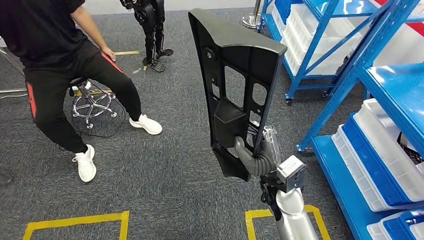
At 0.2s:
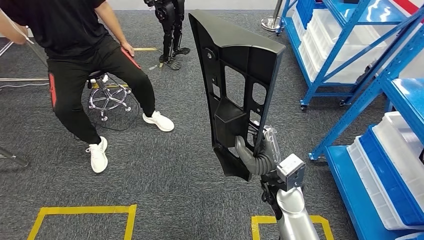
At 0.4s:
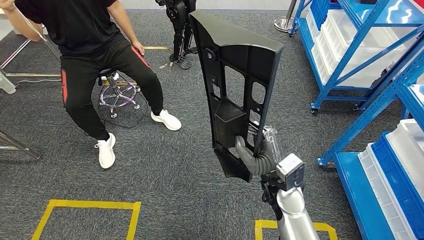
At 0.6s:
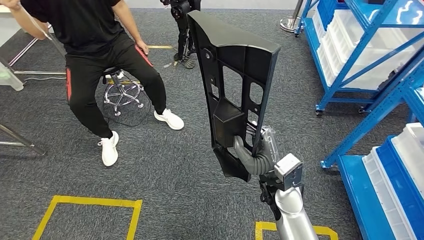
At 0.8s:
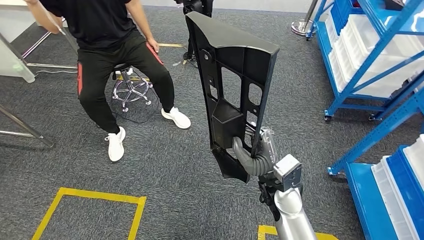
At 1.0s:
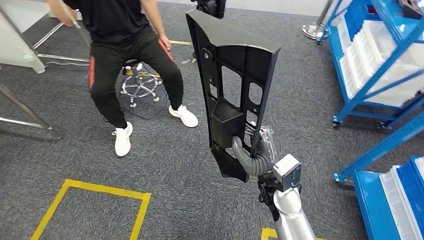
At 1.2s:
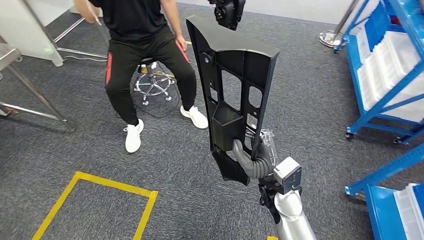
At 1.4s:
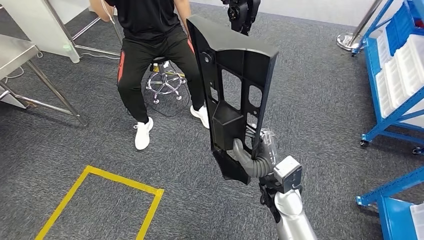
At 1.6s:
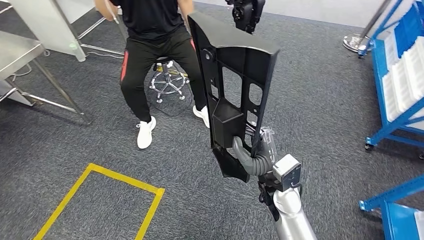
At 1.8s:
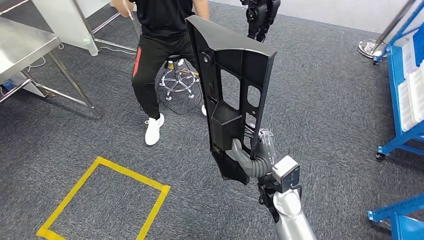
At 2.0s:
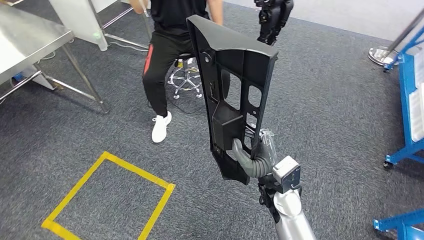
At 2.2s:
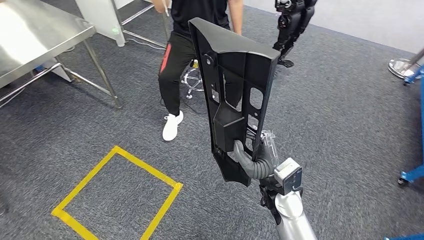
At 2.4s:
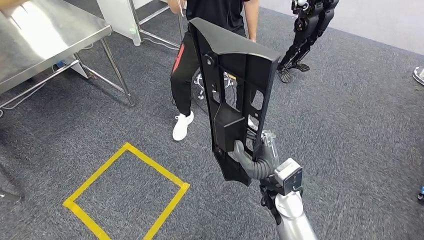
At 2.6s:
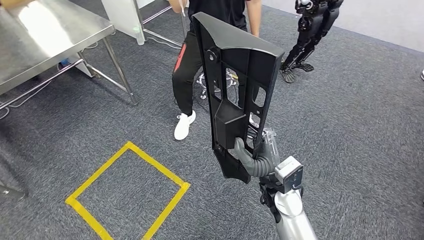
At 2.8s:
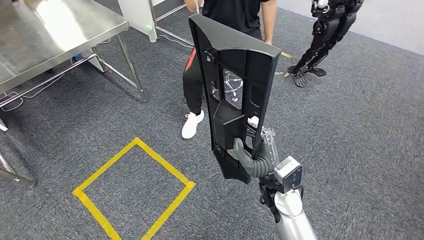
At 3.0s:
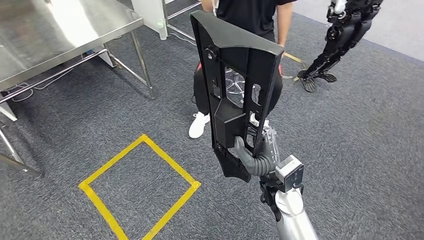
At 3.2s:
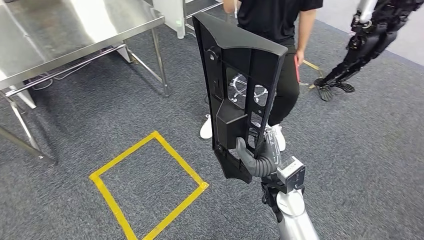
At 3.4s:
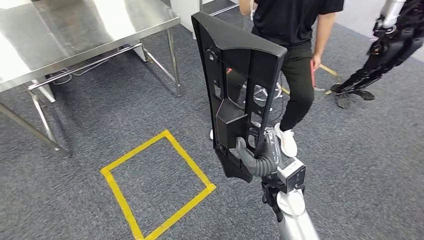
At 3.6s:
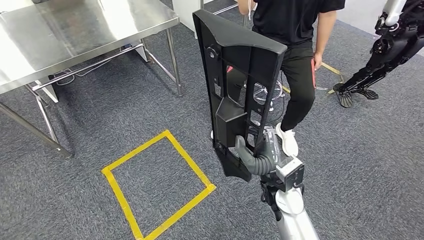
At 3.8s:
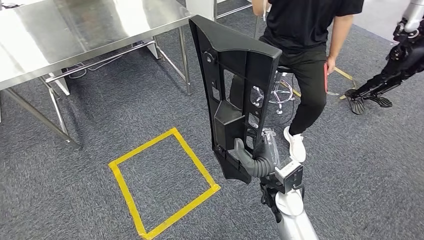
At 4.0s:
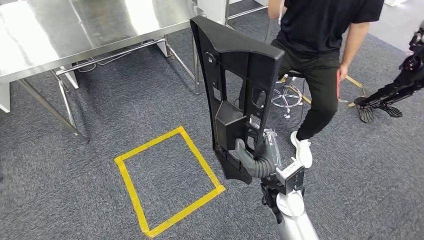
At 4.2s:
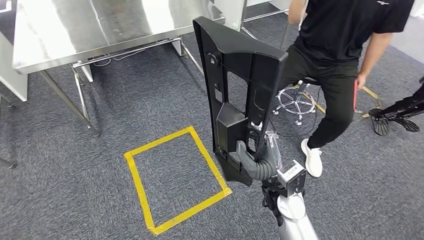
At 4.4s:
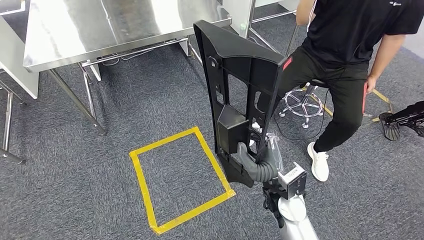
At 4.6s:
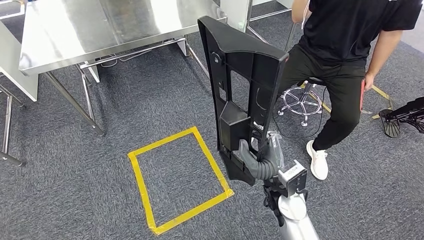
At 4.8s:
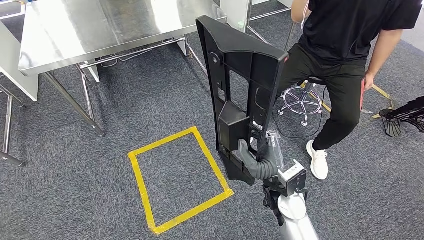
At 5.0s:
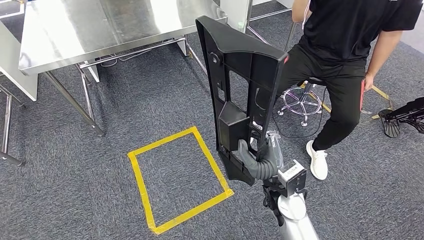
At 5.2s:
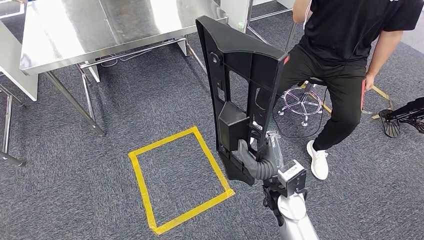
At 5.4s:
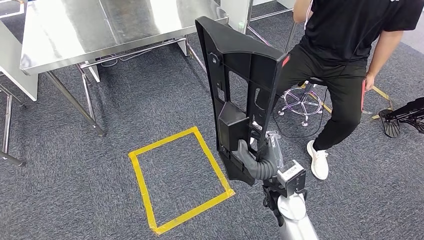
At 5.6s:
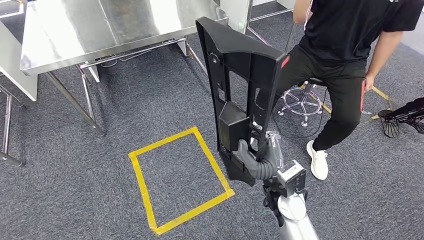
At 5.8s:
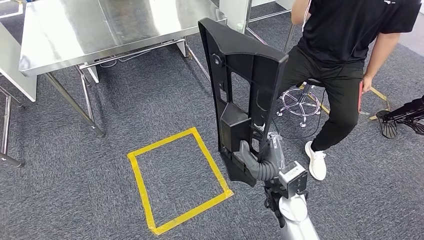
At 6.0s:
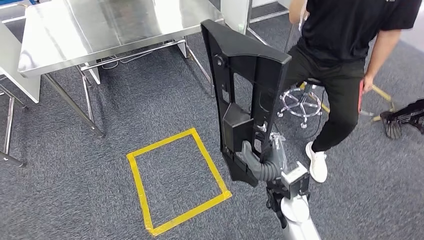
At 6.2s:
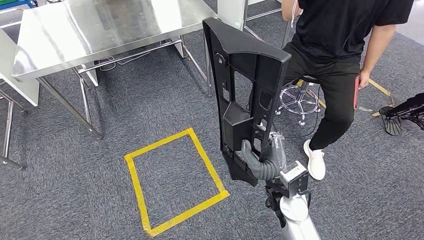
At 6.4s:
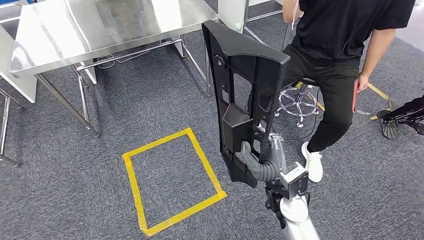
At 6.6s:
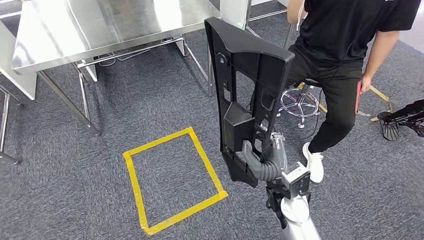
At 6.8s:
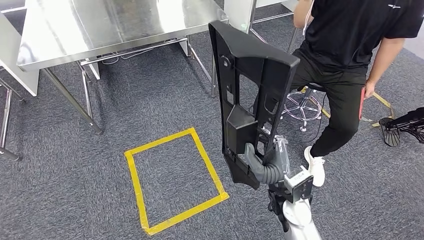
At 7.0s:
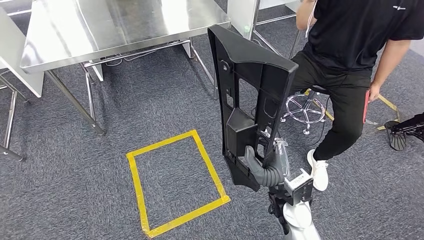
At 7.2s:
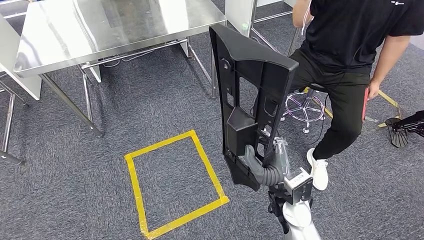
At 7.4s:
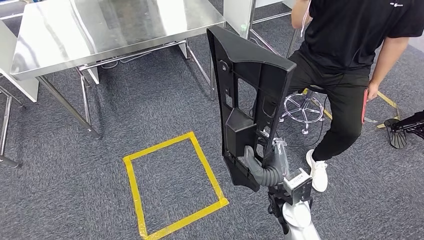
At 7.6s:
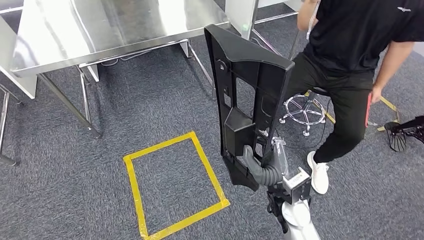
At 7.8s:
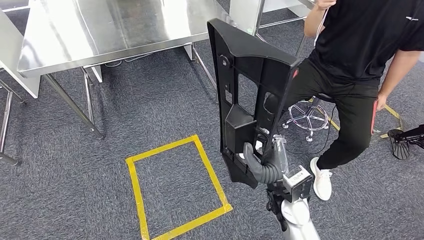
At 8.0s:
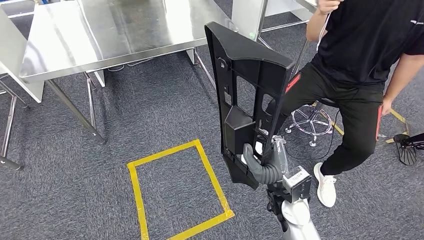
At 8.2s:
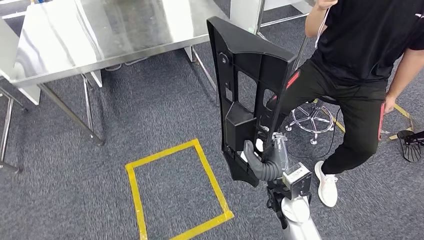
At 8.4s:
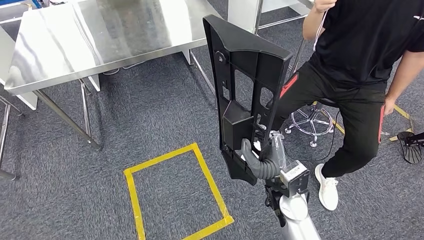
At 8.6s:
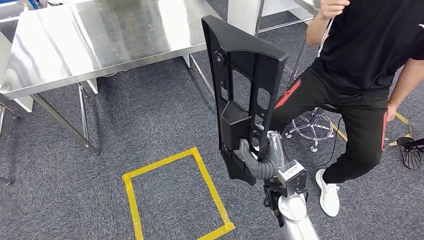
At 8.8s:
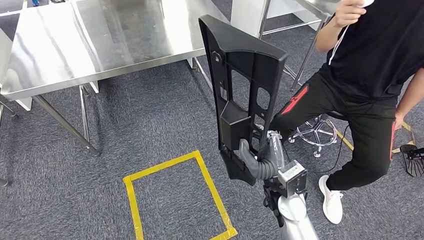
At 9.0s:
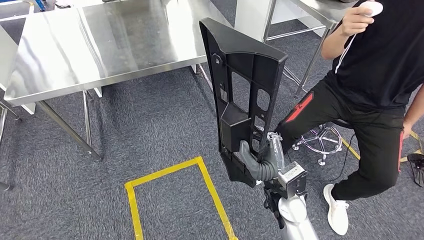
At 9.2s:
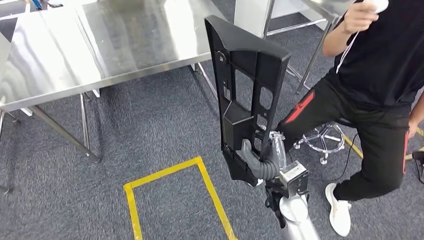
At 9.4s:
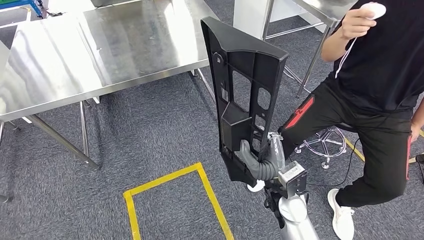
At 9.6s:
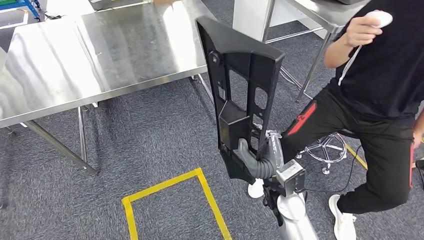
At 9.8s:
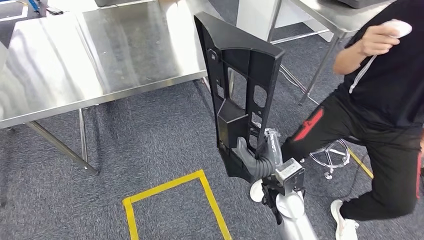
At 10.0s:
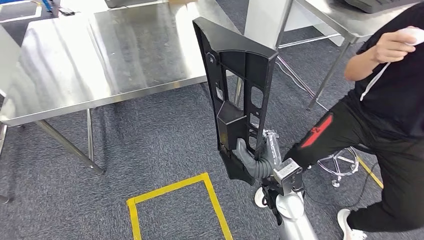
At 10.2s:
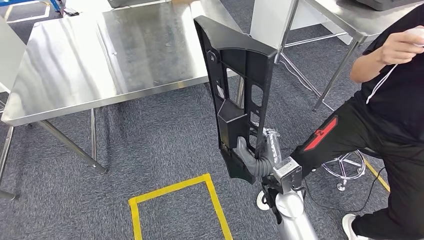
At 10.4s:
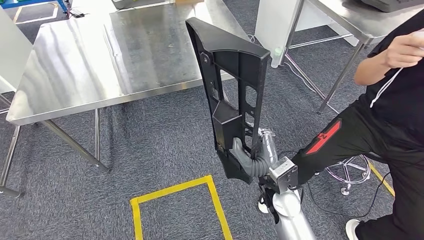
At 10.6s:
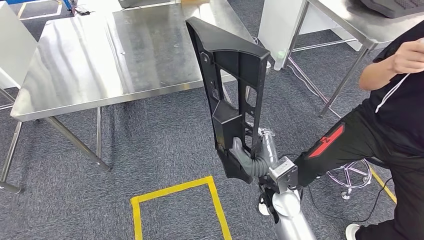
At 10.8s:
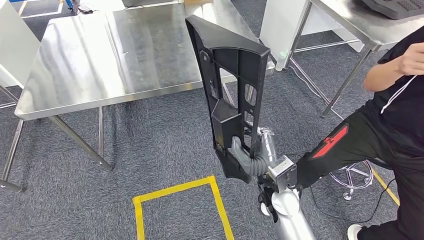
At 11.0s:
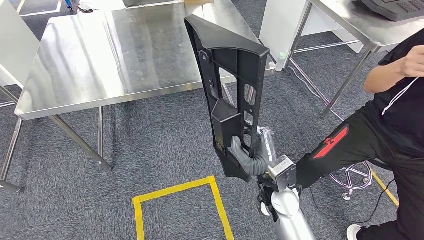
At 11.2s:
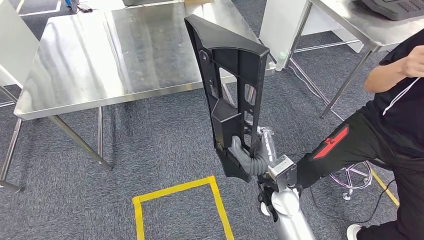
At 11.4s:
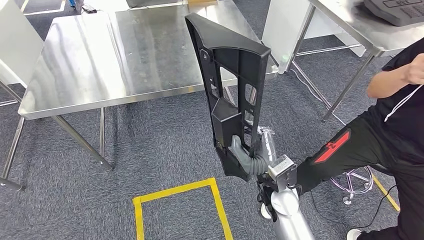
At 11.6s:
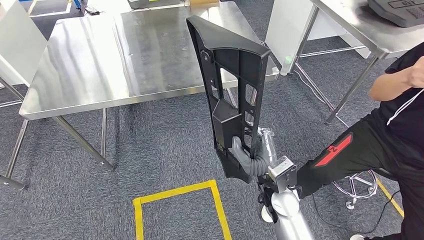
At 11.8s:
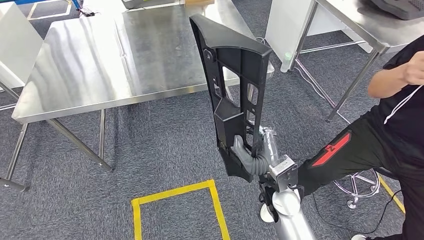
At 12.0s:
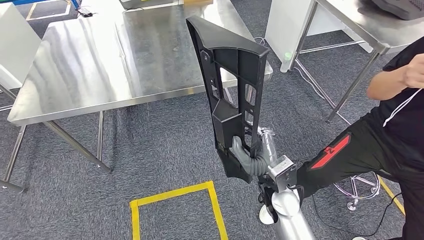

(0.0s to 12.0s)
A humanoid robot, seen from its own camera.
4.4s - 6.0s: Both hands stay put.

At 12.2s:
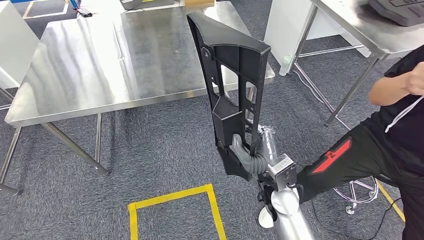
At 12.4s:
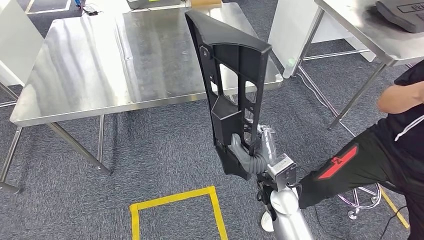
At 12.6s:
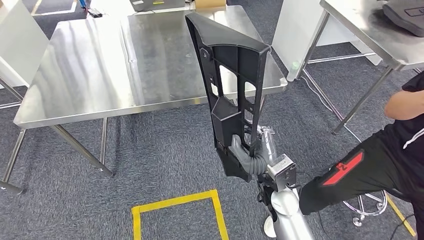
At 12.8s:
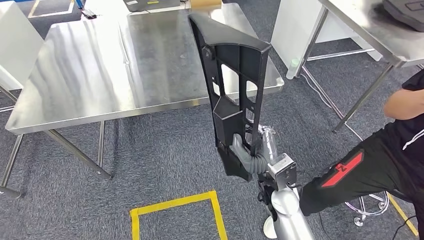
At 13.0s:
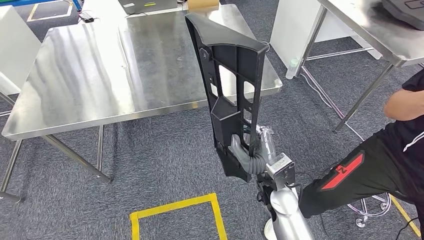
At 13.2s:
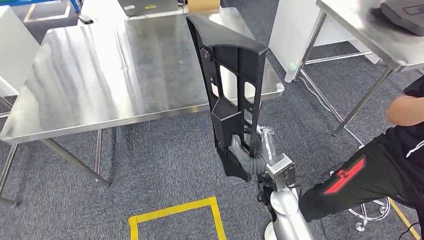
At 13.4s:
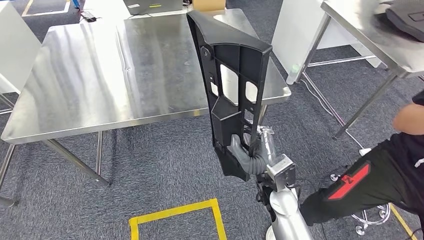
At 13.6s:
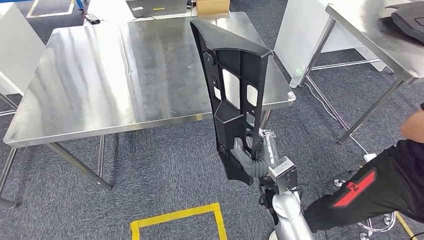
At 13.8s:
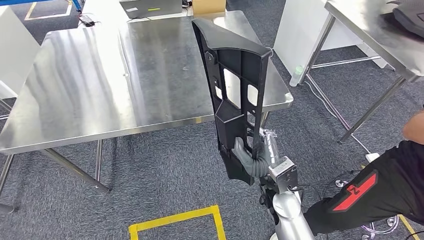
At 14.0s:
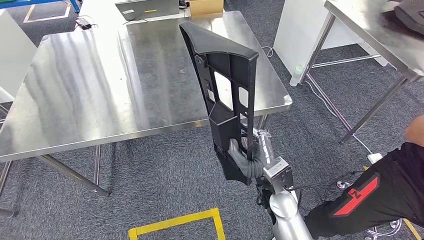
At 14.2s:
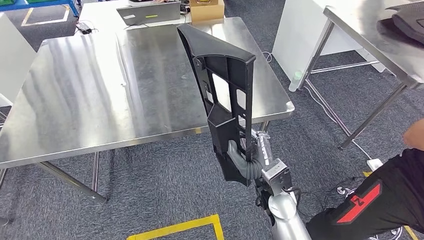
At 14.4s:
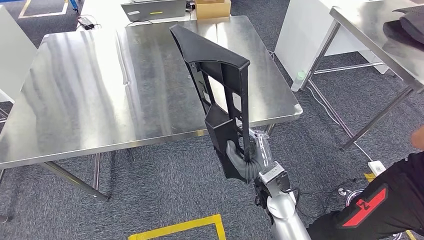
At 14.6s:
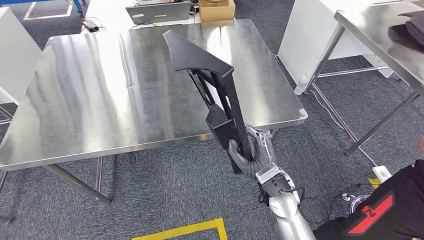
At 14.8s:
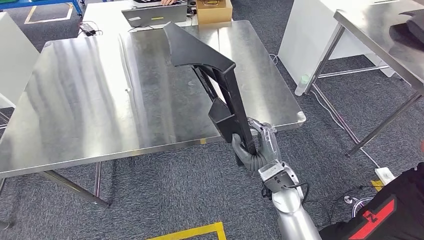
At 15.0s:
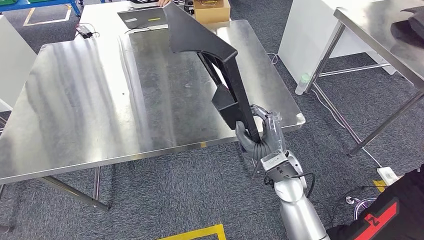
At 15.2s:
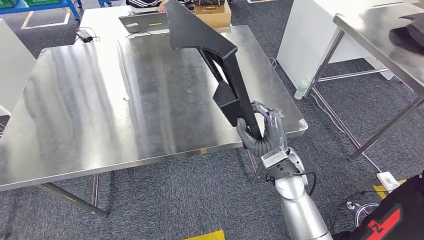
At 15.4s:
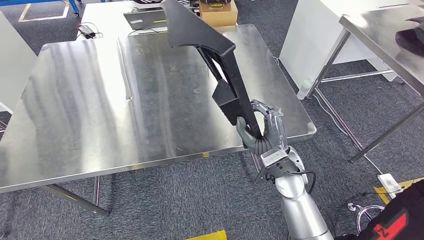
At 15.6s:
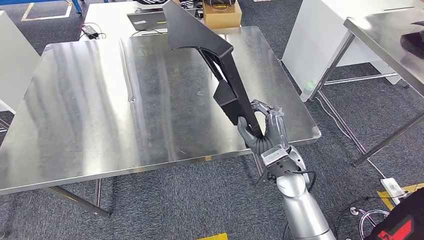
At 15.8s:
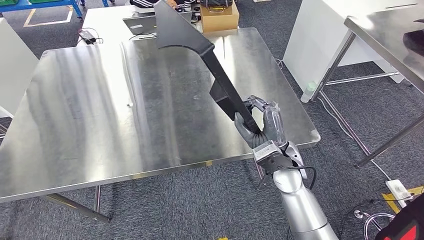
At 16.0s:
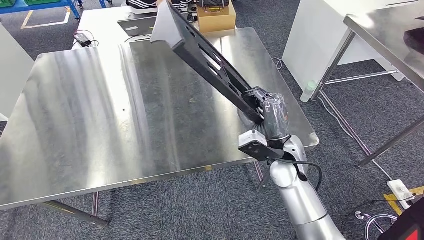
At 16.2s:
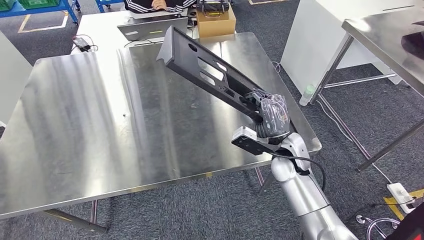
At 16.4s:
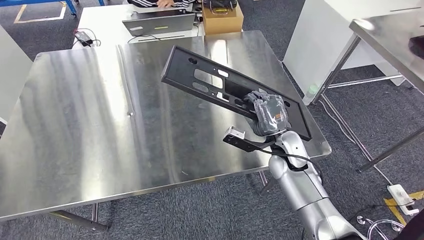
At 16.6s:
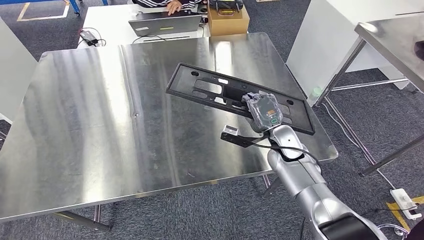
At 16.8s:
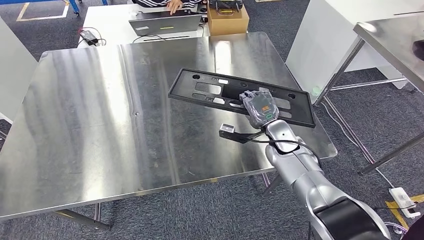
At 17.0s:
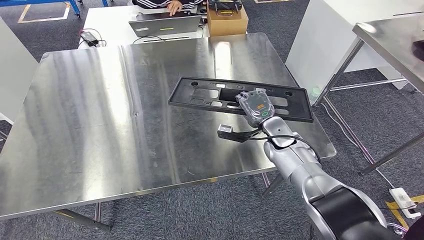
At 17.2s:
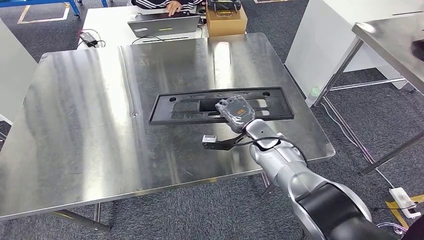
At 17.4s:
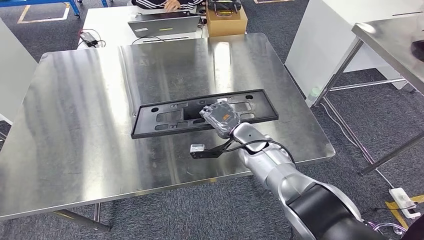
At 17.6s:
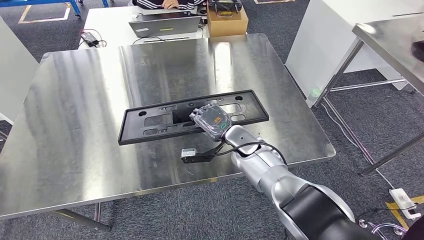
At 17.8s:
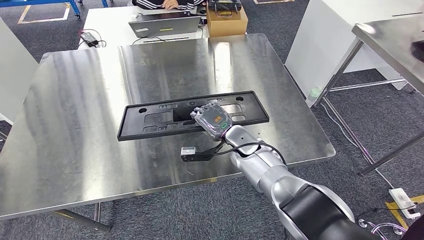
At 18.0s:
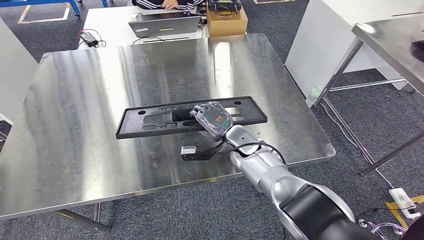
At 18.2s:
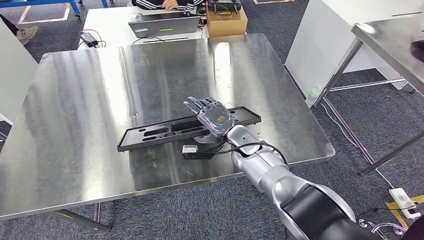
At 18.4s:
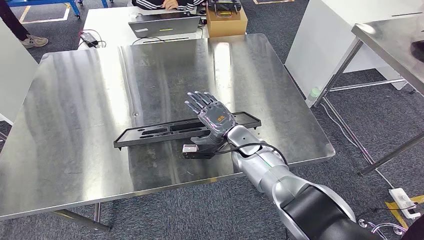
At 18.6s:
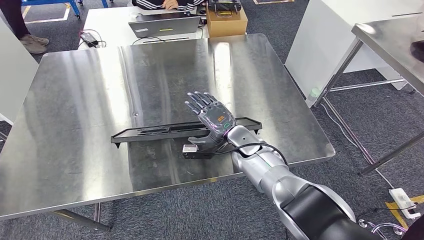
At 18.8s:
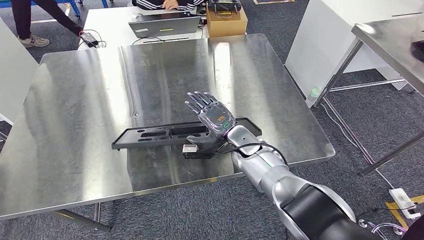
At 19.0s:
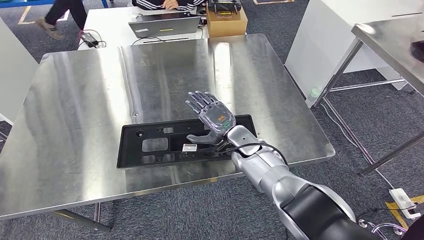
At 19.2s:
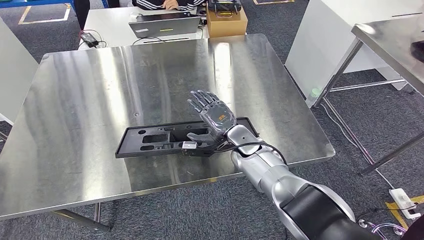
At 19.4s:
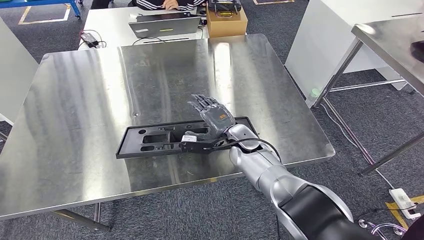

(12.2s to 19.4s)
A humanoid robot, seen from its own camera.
18.0s - 19.4s: The hands stay close to where they were, moving slightly.
